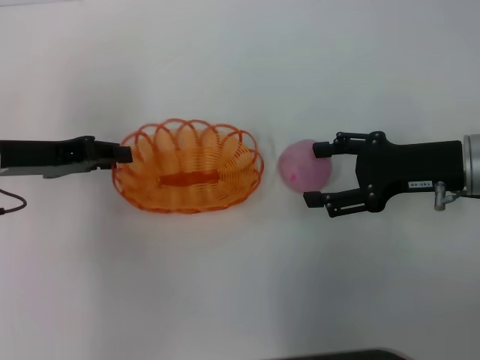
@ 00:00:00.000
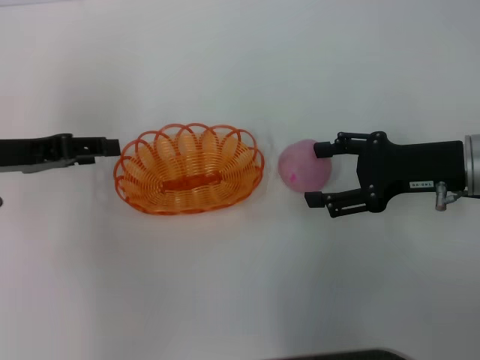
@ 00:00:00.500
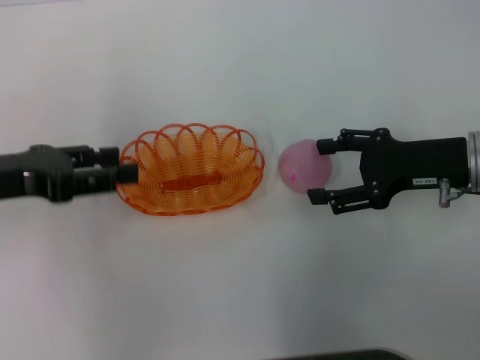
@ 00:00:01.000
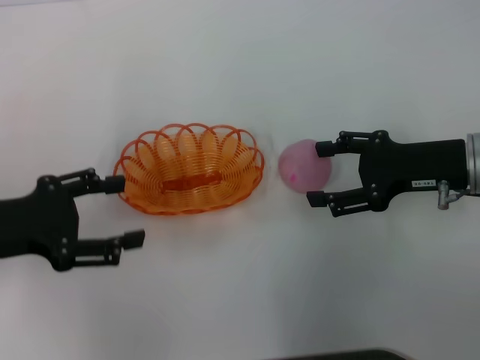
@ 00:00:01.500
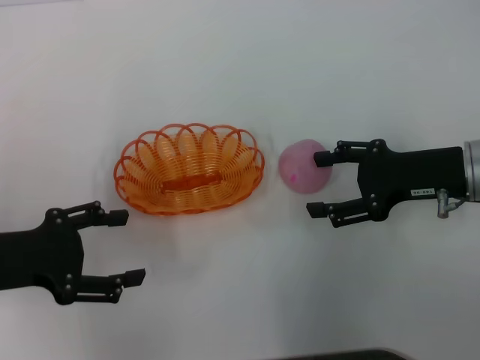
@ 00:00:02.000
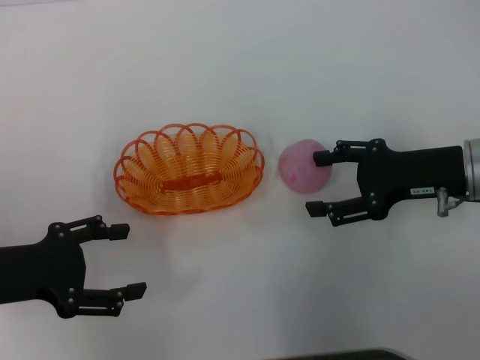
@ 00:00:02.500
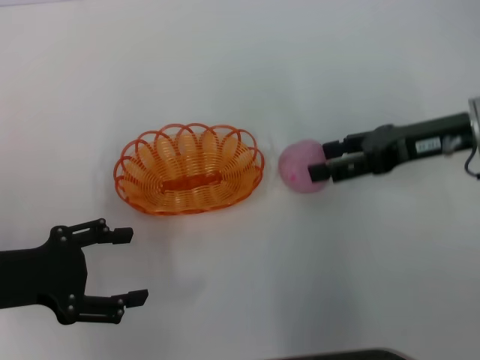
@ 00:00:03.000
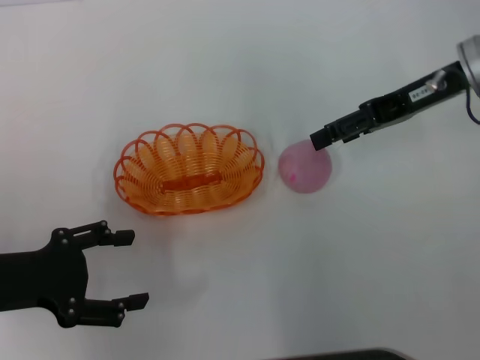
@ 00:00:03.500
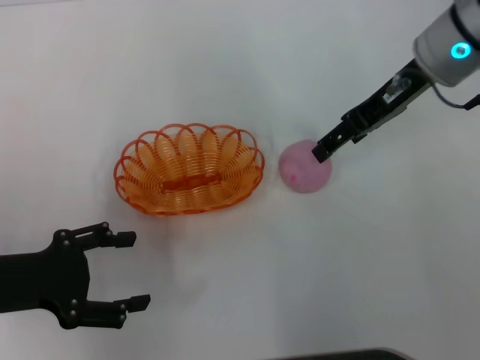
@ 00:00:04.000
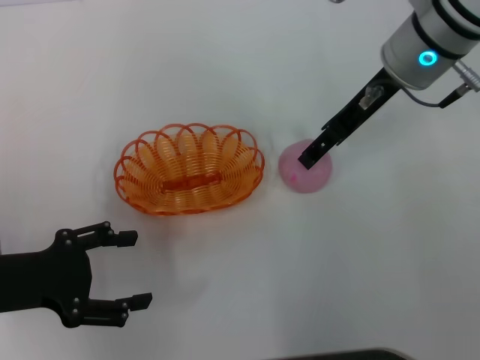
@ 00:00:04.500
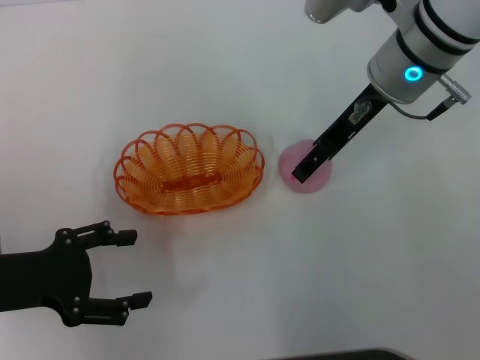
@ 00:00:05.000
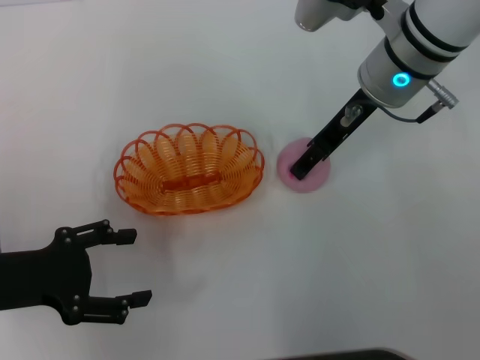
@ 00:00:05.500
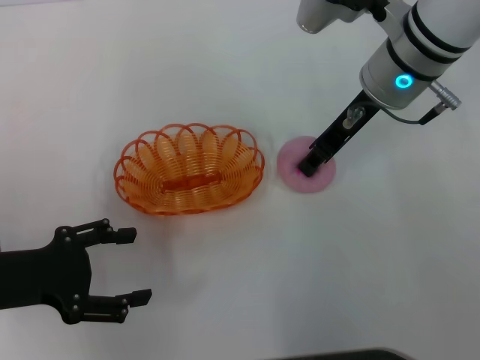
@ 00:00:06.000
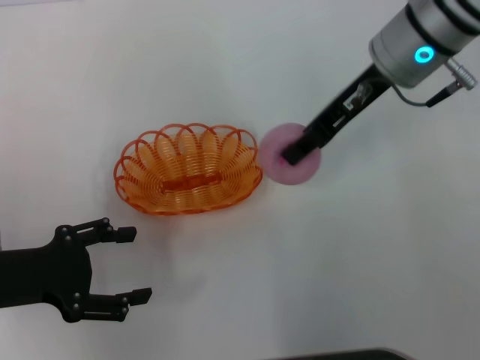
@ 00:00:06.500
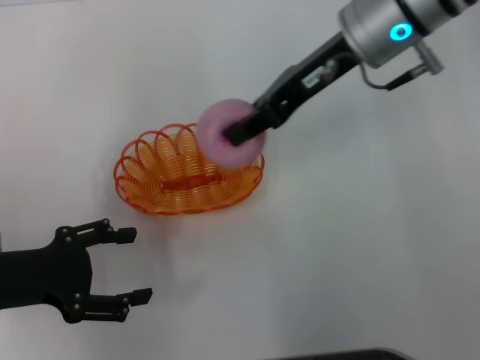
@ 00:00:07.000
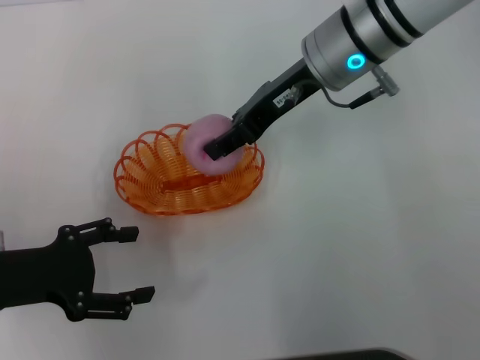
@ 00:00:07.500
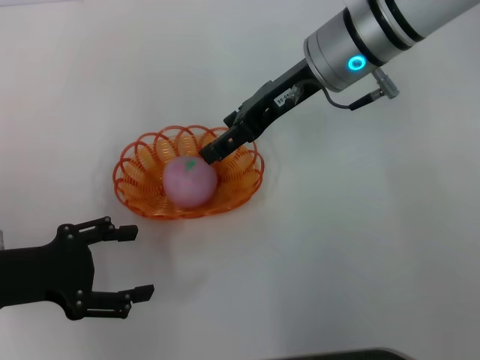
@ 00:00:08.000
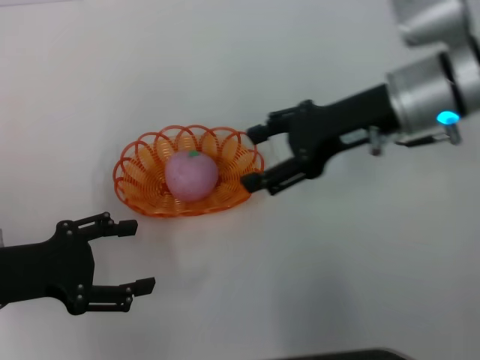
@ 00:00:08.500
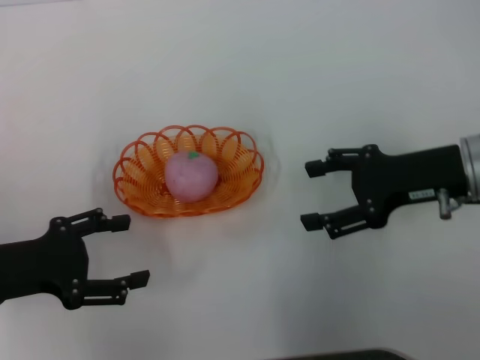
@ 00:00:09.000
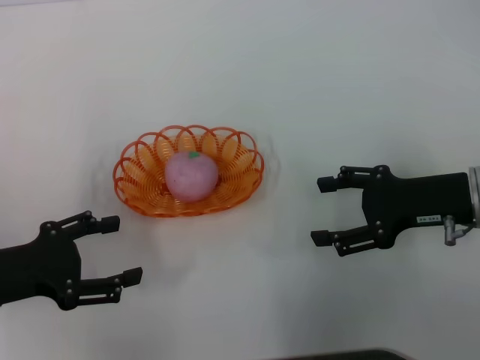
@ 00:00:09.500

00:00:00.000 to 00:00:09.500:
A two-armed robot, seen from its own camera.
Step, 00:00:00.000 to 00:00:02.000: Place the basket in the center of view with the left gripper.
Step, 00:00:02.500 to 00:00:06.000: Pick up the peach with the right gripper.
Step, 00:00:06.500 to 00:00:08.500: Place the peach into the basket with the right gripper.
00:00:00.000 to 00:00:02.000: The left gripper heads backward, covering roughly 10 cm, and opens up.
00:00:02.000 to 00:00:04.000: The right gripper moves forward, upward and to the left, roughly 15 cm.
00:00:04.000 to 00:00:05.500: The right gripper shifts by some 5 cm.
00:00:05.500 to 00:00:07.500: The right gripper closes up.
00:00:07.500 to 00:00:09.500: The right gripper shifts approximately 20 cm to the right, backward and downward, and opens.
